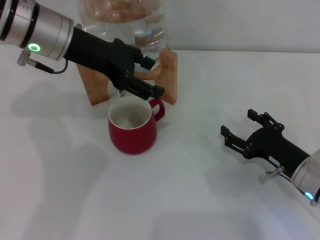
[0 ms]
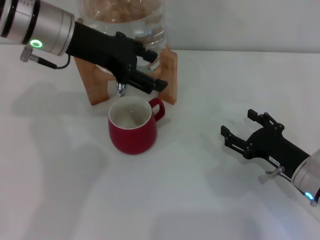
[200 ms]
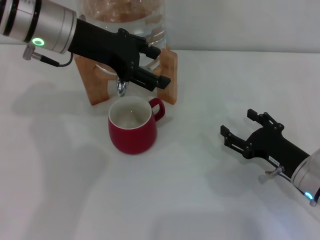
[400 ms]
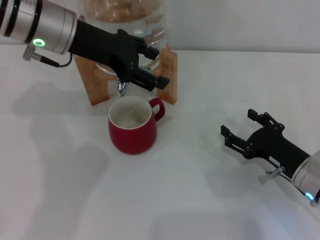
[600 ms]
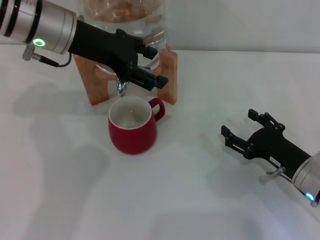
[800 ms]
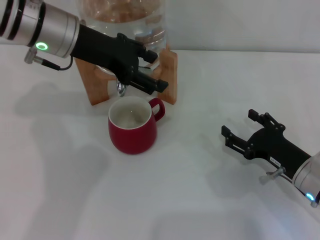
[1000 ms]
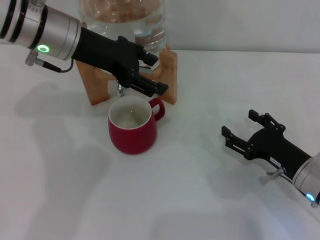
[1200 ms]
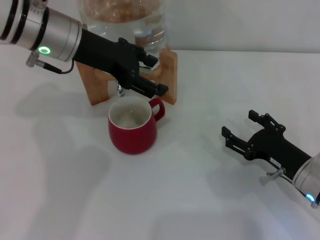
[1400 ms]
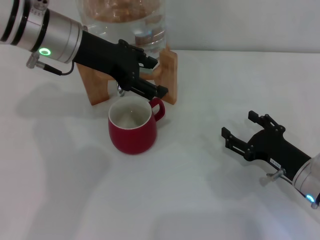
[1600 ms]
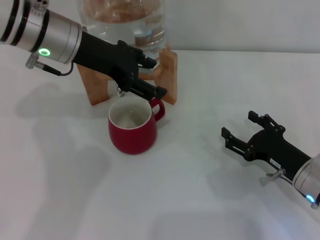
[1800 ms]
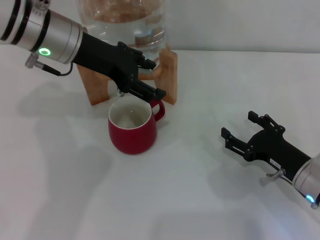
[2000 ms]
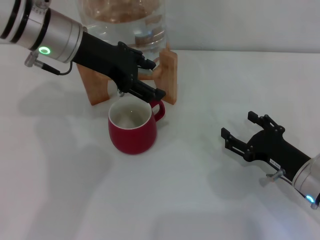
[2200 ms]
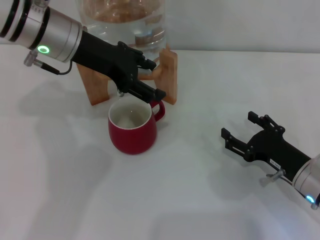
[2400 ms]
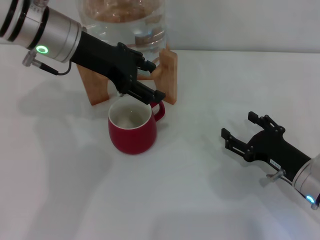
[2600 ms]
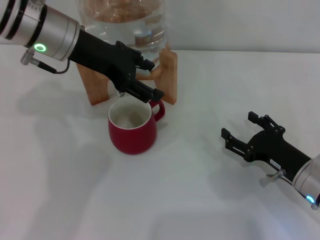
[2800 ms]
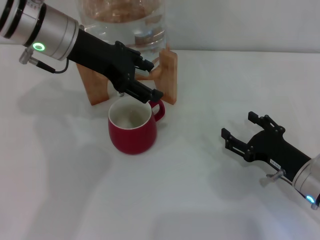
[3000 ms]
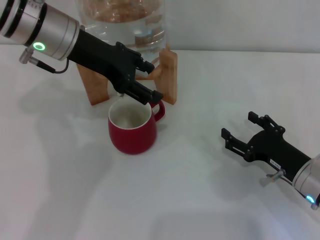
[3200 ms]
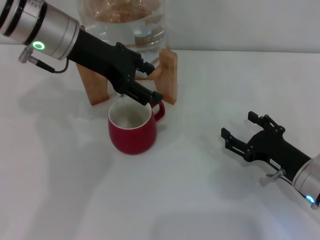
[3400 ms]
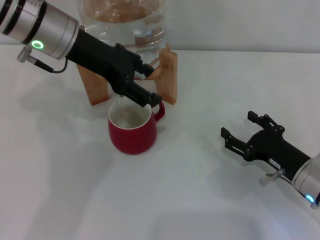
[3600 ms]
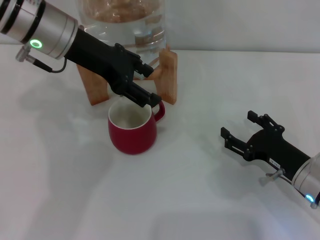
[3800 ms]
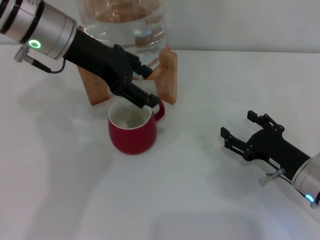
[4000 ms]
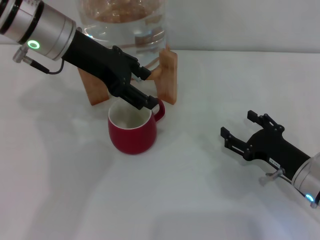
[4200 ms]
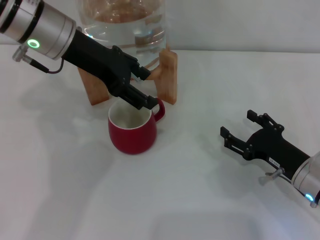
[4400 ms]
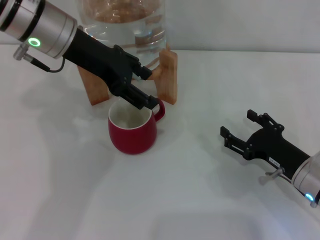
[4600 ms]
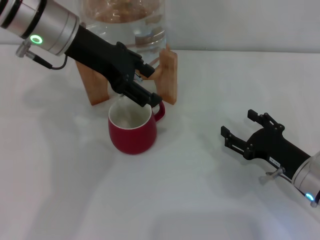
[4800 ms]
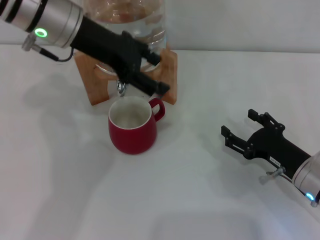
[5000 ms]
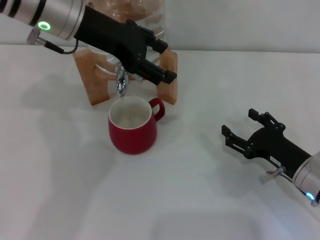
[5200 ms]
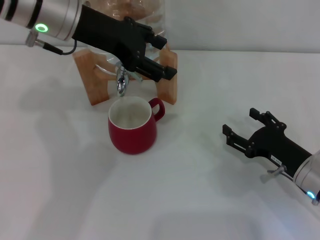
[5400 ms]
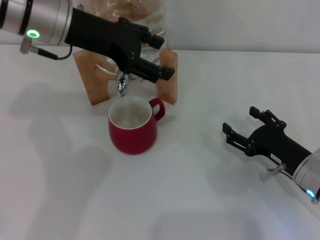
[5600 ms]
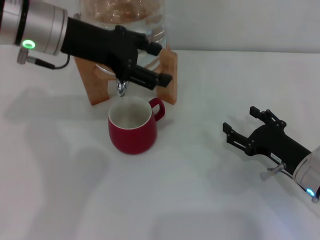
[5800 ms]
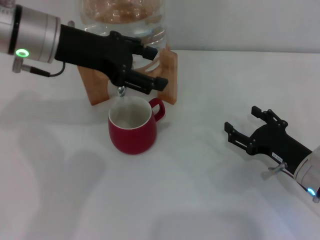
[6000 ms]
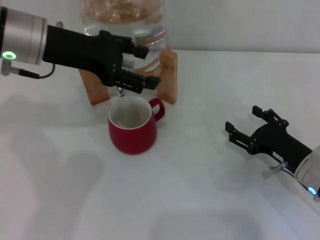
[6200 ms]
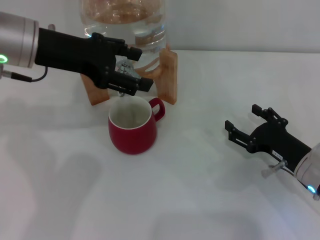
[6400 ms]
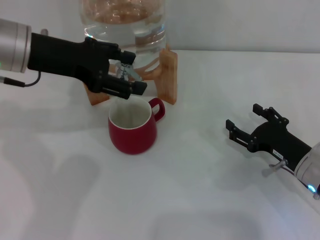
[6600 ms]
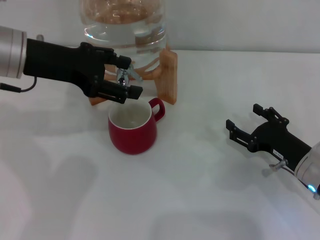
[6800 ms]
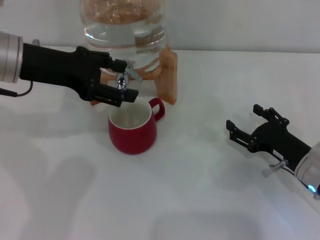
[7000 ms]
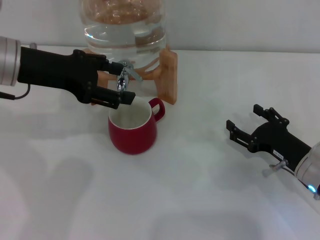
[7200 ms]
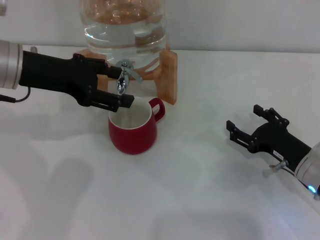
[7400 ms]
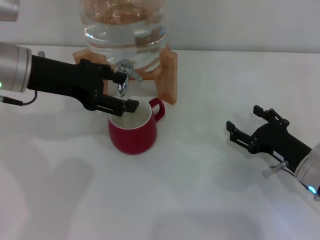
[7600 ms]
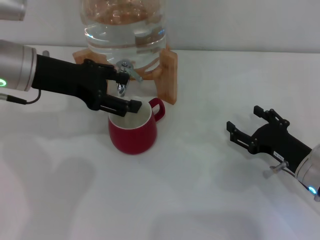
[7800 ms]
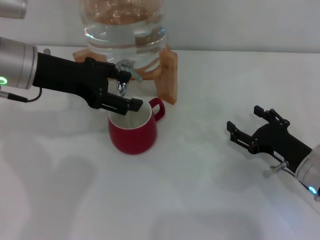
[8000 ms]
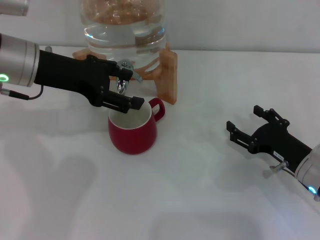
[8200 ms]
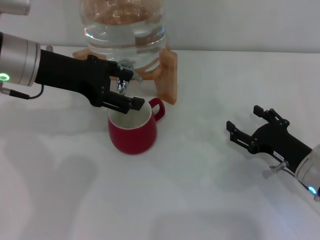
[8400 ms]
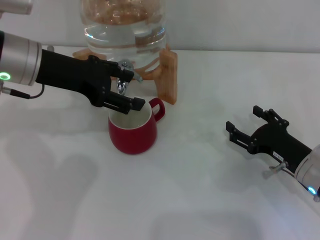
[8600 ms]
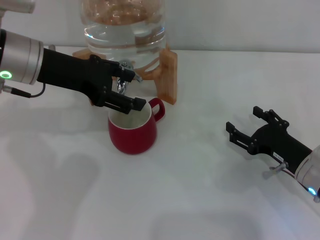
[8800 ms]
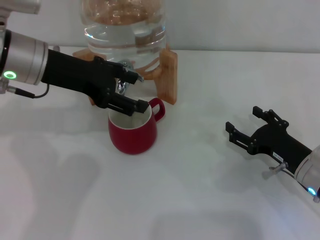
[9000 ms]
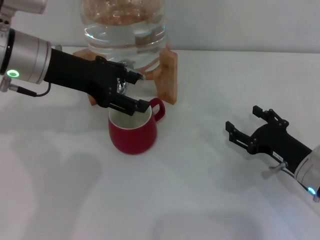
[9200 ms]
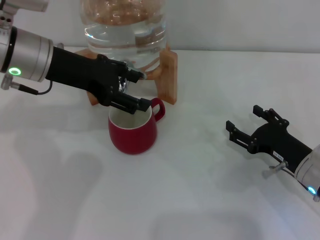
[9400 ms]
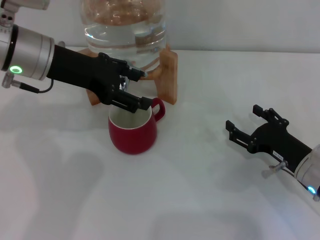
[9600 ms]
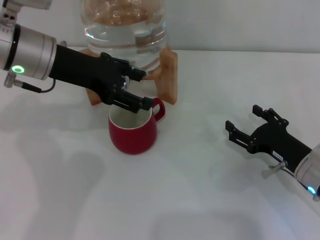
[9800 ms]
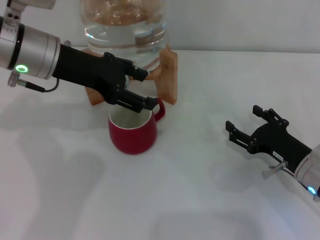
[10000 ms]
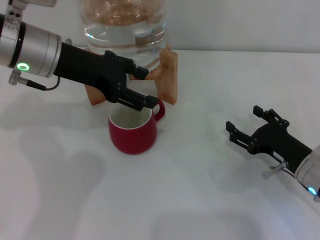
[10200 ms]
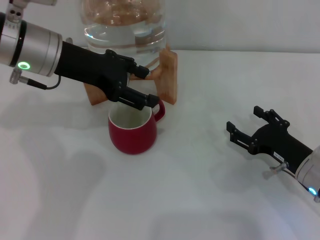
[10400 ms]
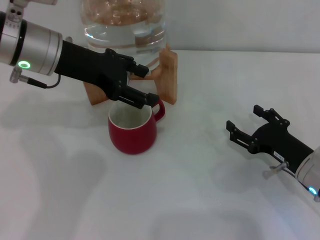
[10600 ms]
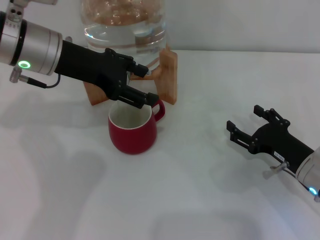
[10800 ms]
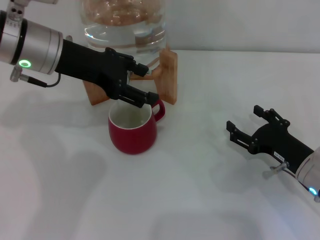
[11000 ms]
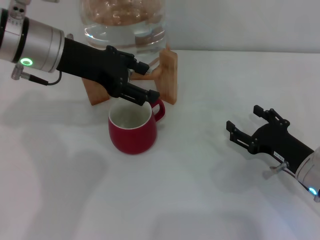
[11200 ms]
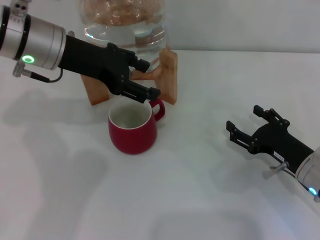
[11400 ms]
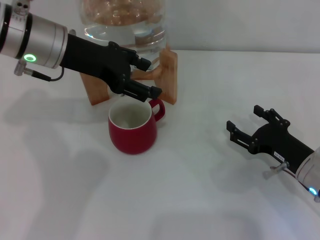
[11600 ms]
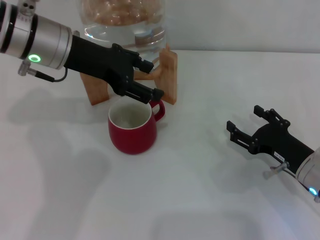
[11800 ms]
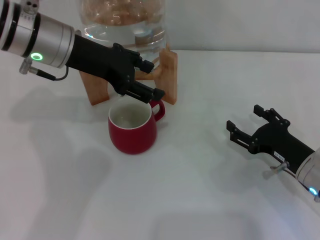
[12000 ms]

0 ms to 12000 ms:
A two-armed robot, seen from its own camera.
Task of the whole recording: the right gripper pick up the red cup and place it horizontally under the faucet, the left gripper turn on the faucet to fill the cup, and then turn off the faucet.
Step, 0 ms to 6800 ms: Open the dispenser valve and fill the cup with water with the left gripper.
0 ms to 3000 ms: Neither gripper changes place.
3000 ms to 4400 ms: The two grippers keep their place.
4400 ms to 6000 ms: The grippers stay close to where they were, moving slightly.
6000 ms to 7600 ms: The left gripper shifts by some 5 cm.
7600 ms to 10400 ms: There are only small adjustments of the grippers.
10400 ms to 12000 ms: The grippers stay close to where they were, moving slightly.

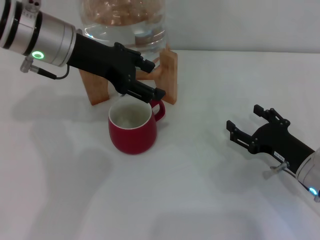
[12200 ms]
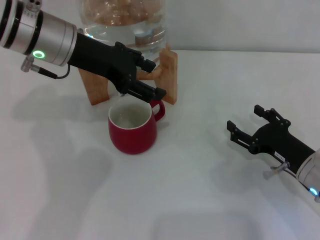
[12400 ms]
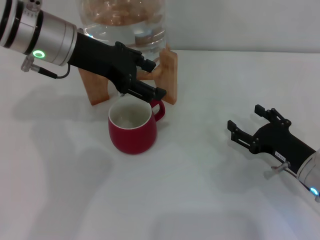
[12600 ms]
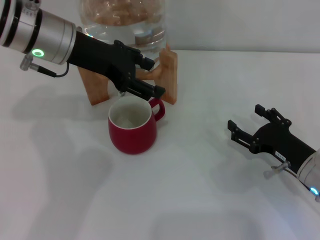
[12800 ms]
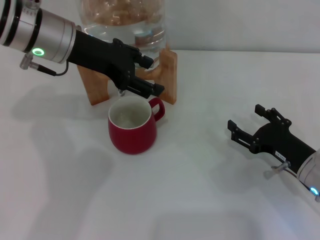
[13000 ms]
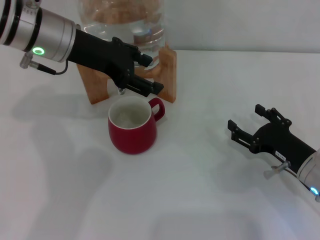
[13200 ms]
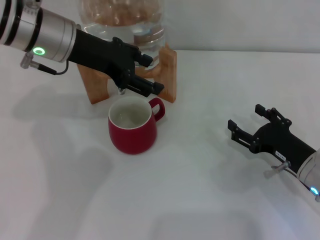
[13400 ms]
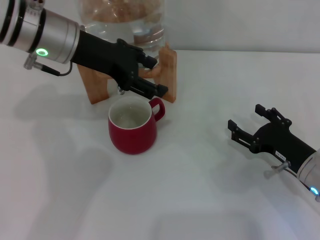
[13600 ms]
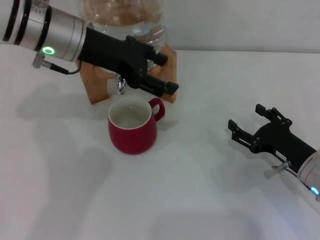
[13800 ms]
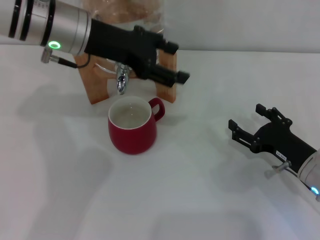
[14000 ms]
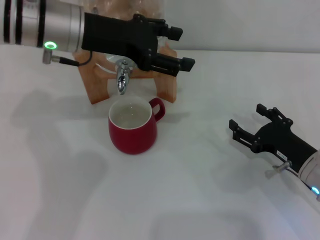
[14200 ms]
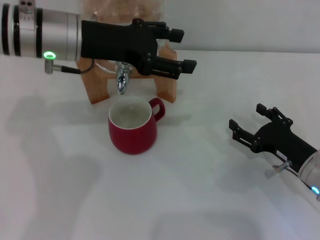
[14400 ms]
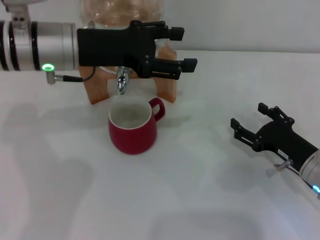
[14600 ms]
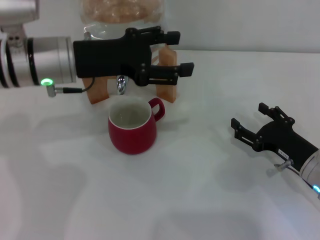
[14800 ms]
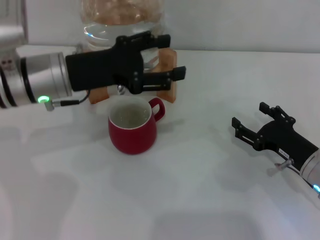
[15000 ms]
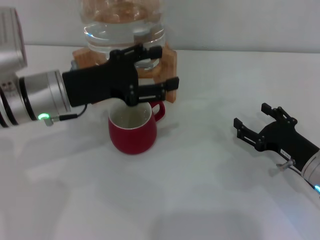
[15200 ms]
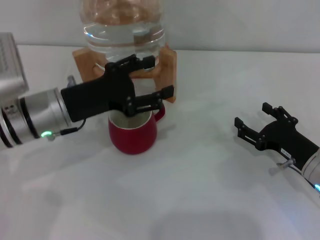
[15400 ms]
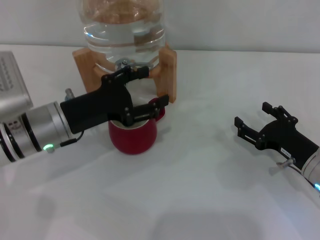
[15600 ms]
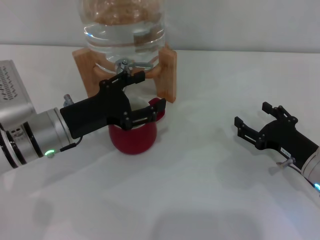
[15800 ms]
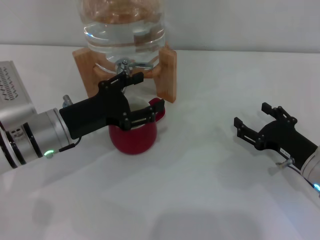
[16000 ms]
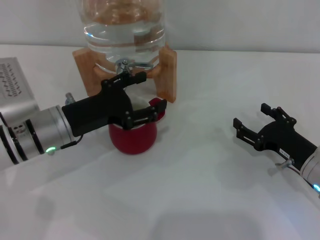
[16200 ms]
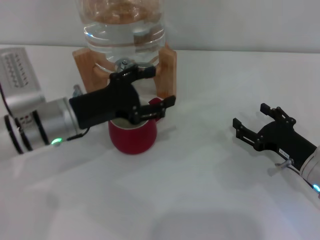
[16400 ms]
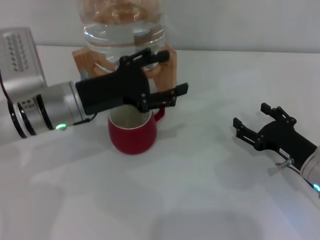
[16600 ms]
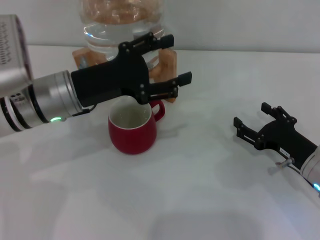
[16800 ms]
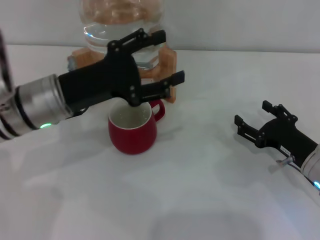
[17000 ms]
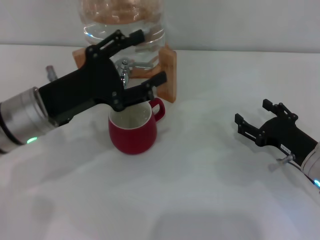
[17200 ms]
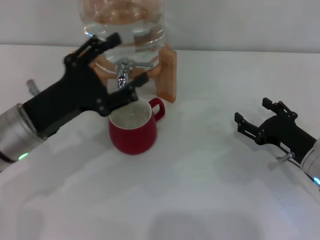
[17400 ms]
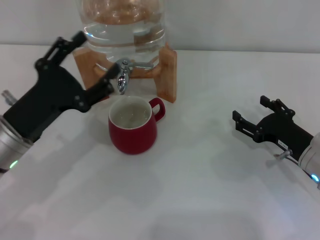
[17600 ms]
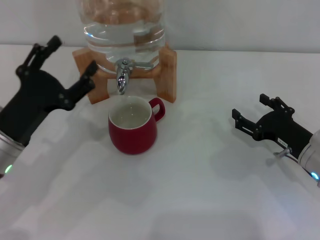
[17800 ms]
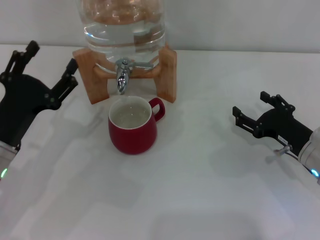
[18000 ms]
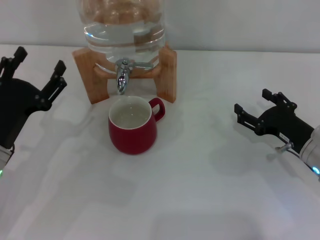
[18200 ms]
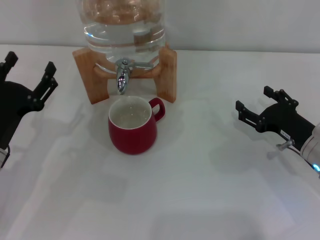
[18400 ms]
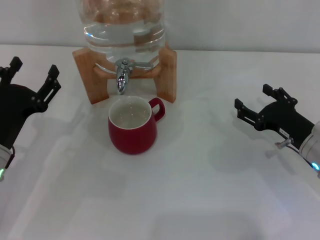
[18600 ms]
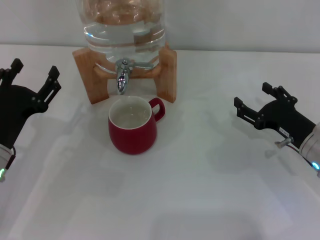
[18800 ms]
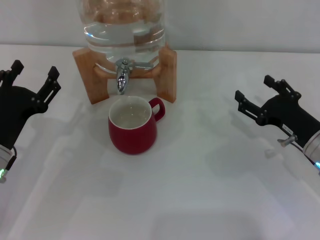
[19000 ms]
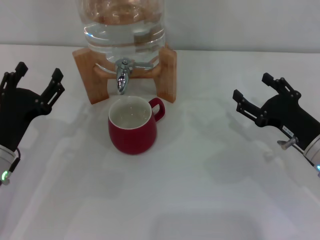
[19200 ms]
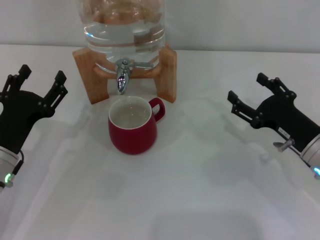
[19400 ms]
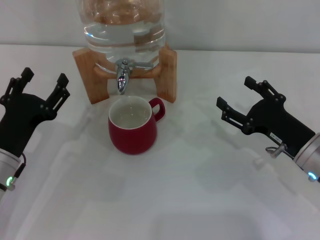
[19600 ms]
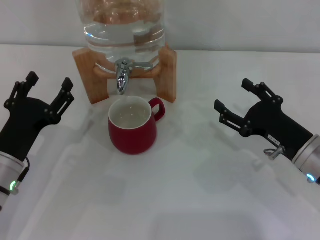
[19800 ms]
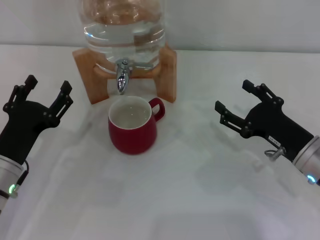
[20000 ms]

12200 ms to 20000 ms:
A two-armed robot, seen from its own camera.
Task of the whole recording: the right gripper pick up the red cup and place it horizontally under the faucet, the left gripper turn on the faucet to fill the cup, and then turn off the faucet.
Step, 12200 ms to 17600 ms: Close the dispenser valve with the left gripper.
12200 ms to 13800 ms: Both grippers stay about where they are.
13800 ms to 15400 ms: The left gripper travels downward and backward by some 15 cm.
15400 ms to 16800 ms: The grippers stay close to where they were, moving slightly.
16800 ms to 18400 ms: The left gripper shifts some 15 cm to the left, downward and backward.
18400 ms to 20000 ms: The grippers stay close to where they were, moving slightly.
